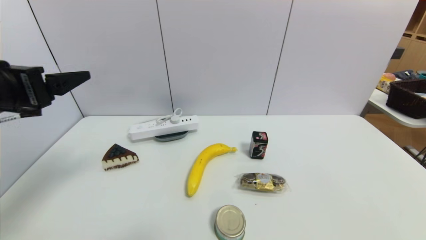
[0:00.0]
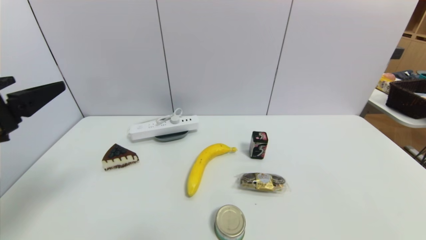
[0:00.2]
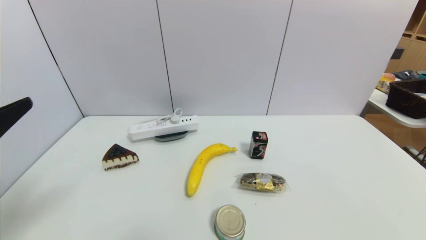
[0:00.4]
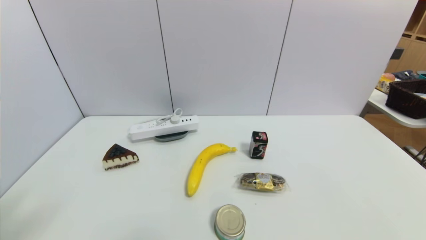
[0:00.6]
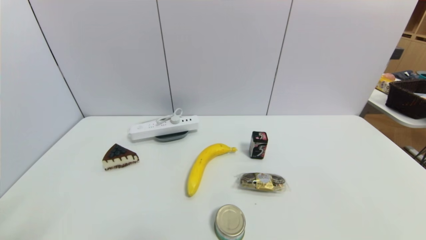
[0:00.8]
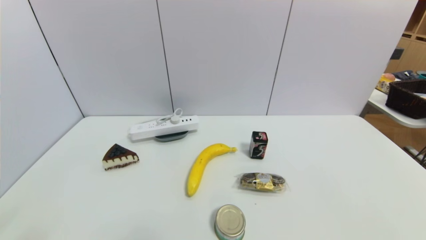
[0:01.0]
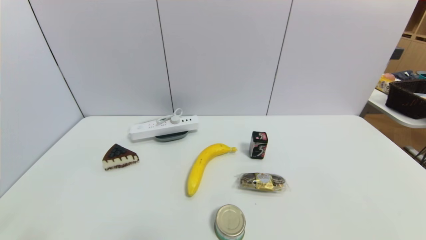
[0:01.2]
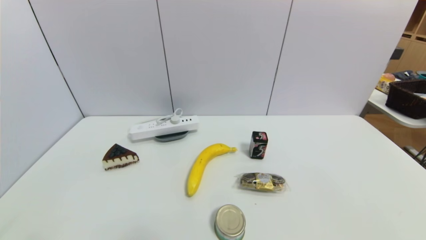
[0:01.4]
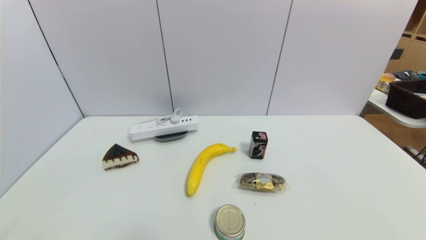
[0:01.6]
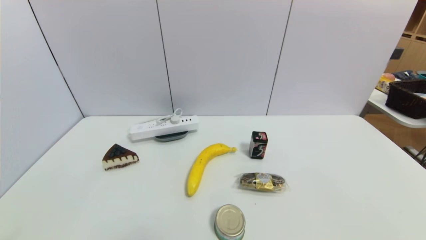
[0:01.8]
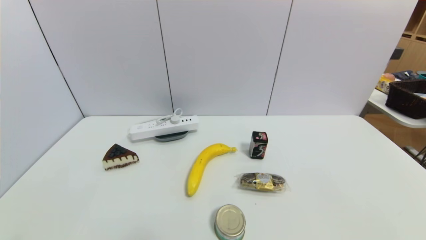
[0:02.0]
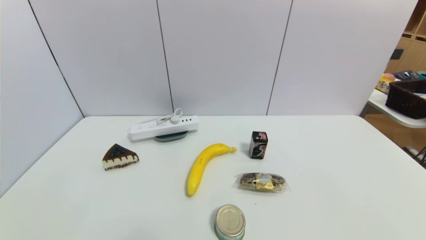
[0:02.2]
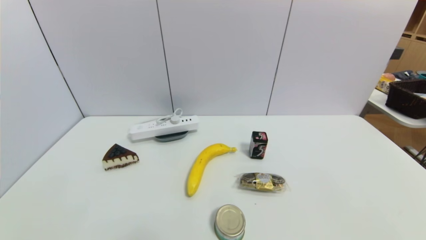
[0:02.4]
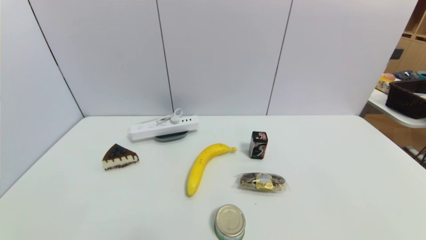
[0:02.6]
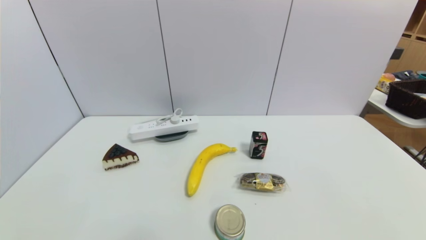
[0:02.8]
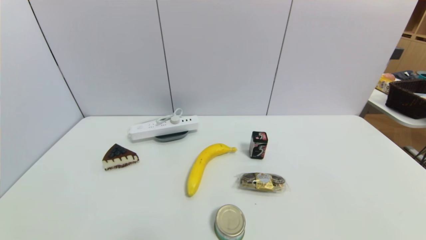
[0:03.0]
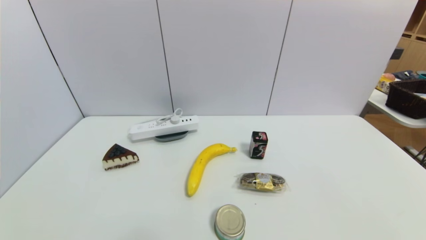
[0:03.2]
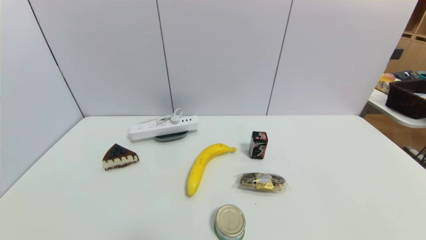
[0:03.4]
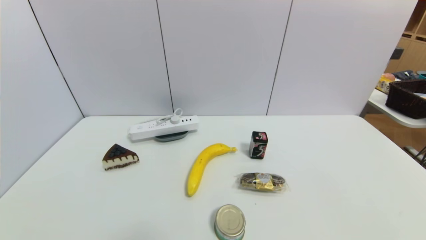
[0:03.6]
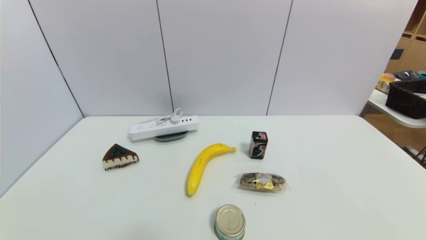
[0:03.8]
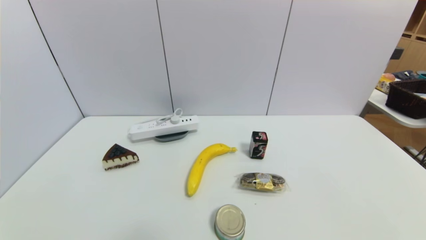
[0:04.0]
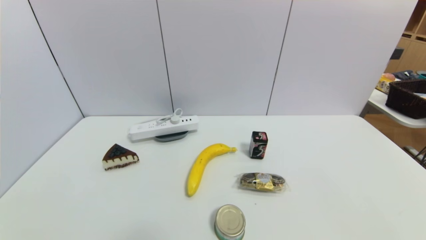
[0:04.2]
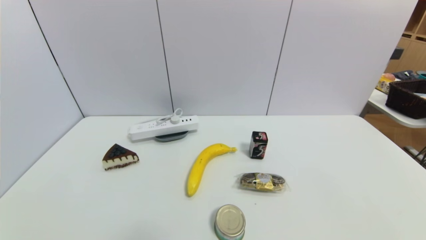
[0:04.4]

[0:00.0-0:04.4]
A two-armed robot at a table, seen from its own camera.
Task of the whole recording: use a gripper to pick the target object and place on the dish.
0:00.0 to 0:01.4: The left gripper goes roughly 20 cm backward and downward.
0:03.0 to 0:04.4: Both grippers stay put.
